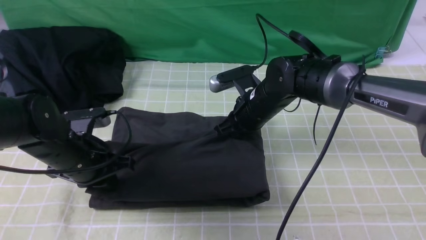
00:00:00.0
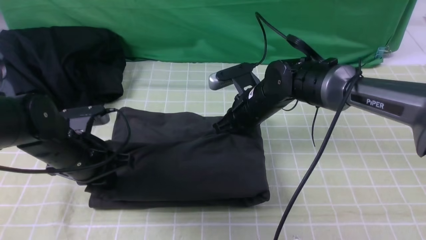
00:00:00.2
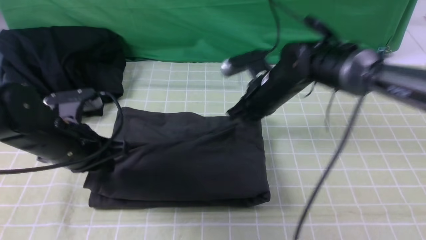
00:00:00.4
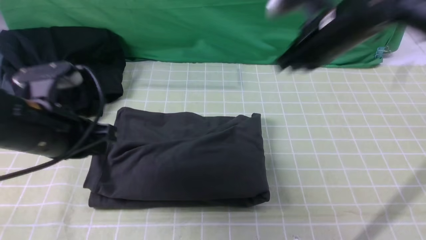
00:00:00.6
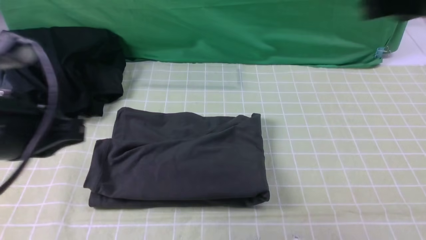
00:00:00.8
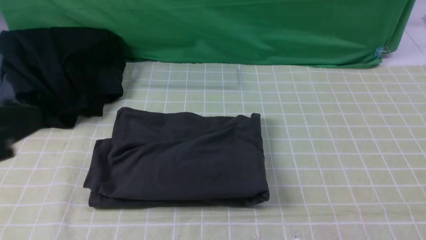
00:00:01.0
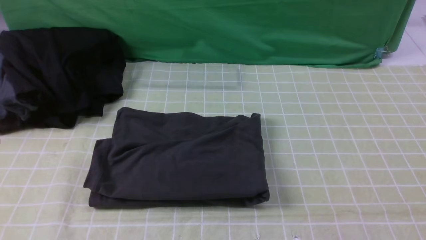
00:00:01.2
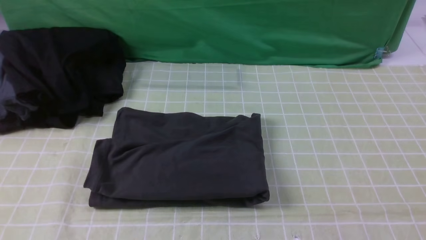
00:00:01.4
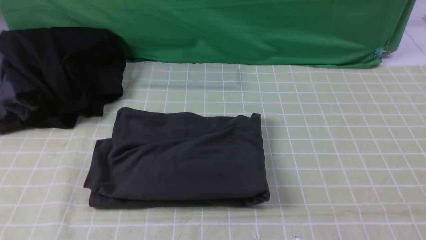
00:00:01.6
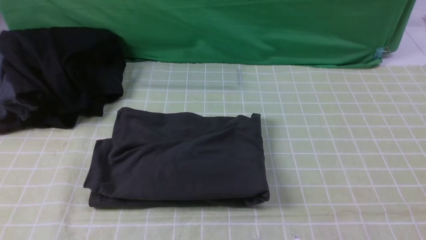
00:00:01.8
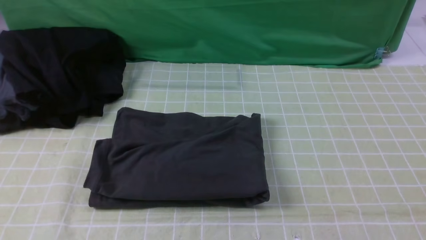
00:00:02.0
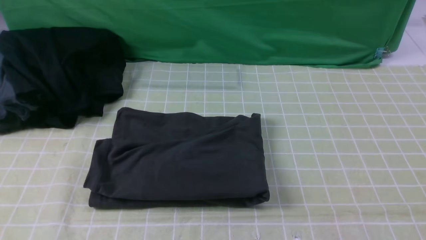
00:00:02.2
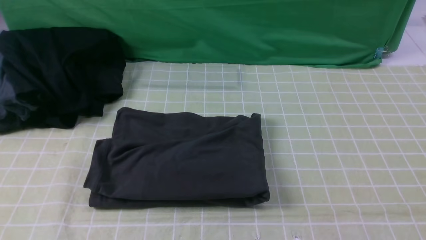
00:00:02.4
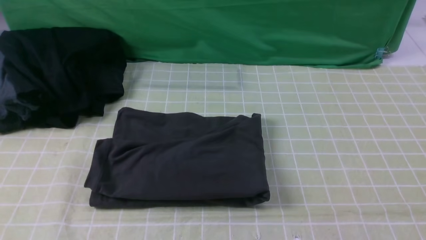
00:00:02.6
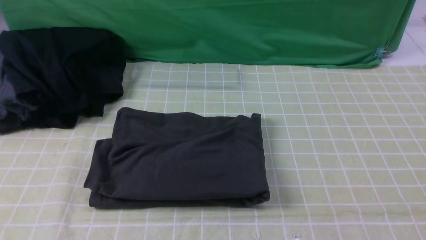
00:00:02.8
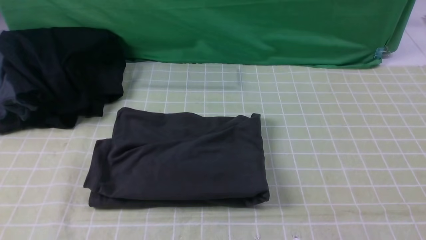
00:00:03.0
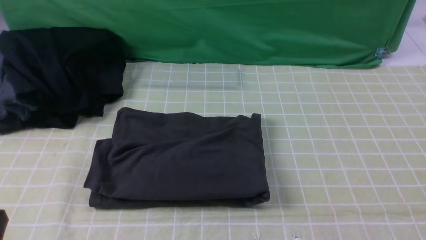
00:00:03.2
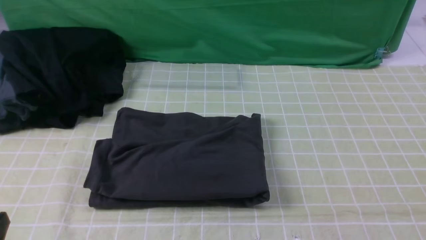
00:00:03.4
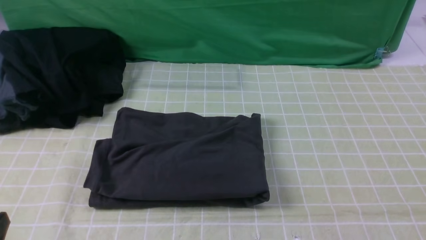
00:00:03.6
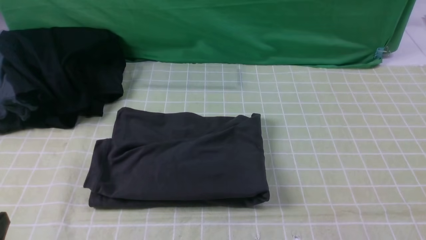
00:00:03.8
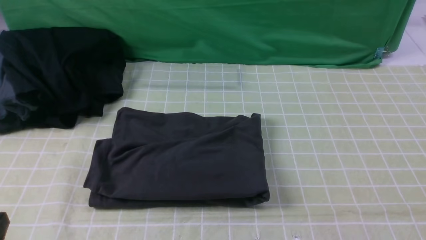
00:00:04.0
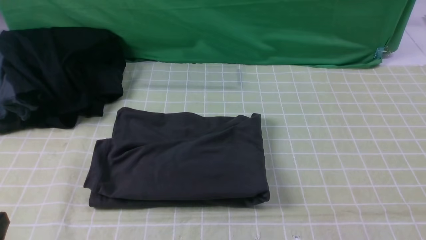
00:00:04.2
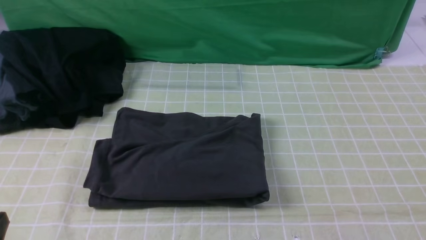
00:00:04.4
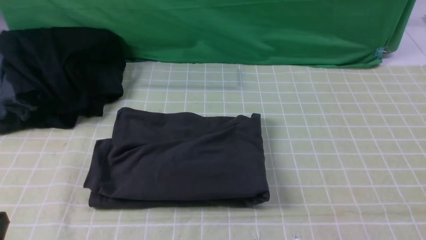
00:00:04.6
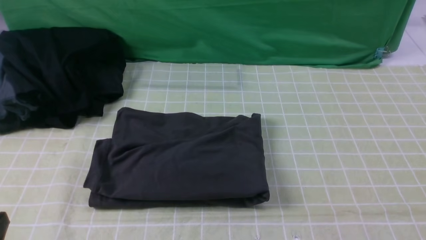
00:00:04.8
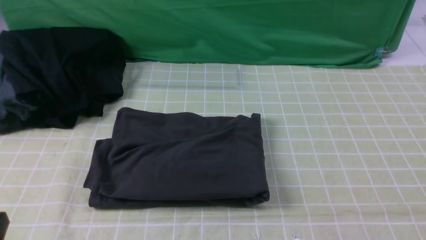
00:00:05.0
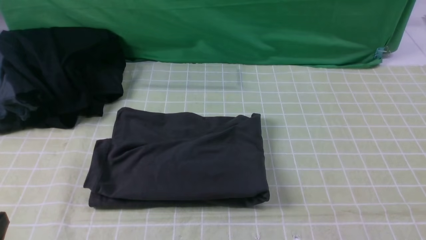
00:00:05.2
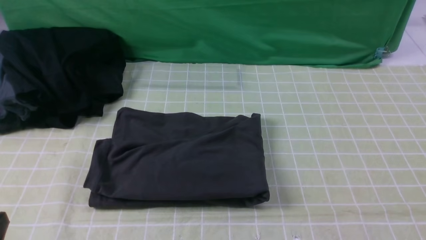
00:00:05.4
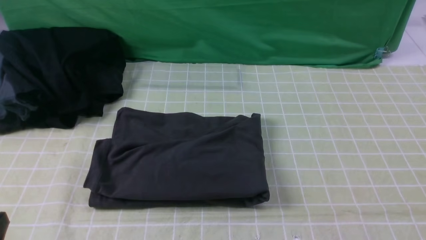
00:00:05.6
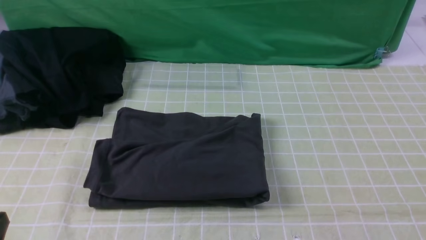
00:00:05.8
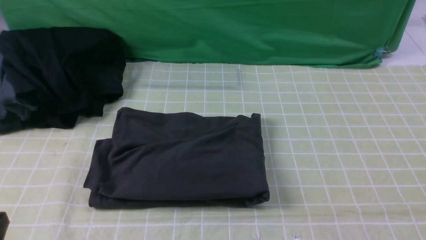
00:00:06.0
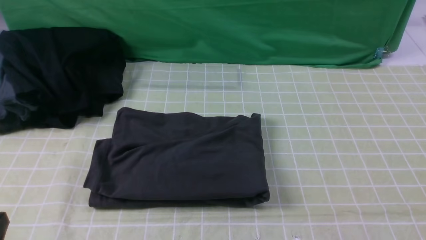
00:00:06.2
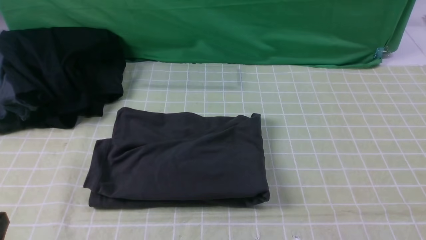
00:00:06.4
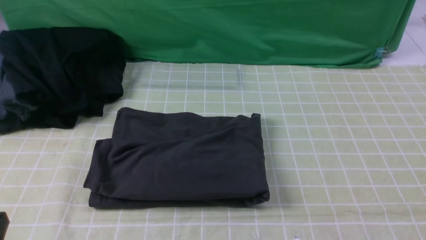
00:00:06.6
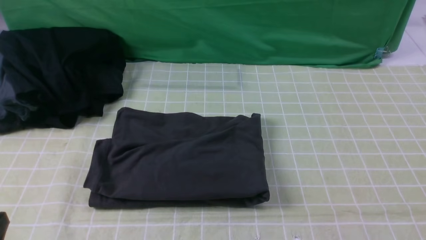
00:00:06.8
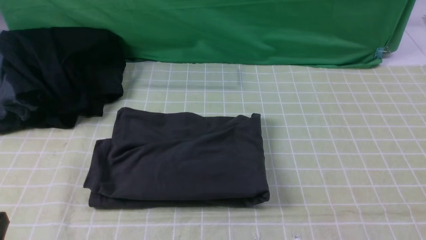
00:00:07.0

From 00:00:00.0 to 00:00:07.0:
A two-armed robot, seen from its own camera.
From 00:00:00.0 to 00:00:01.4: The right gripper goes about 50 cm backward, to the right and upward, while the left gripper is displaced backward and upward by some 35 cm.
From 00:00:05.6 to 00:00:07.0: Both grippers stay put.

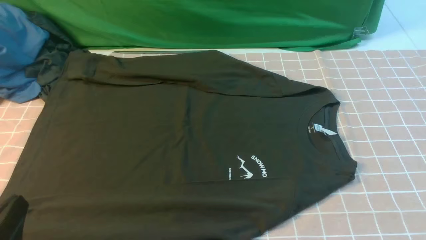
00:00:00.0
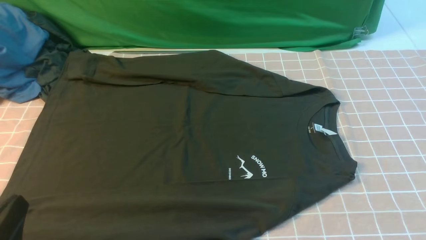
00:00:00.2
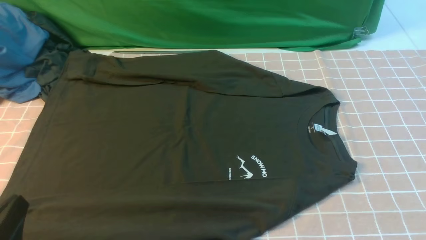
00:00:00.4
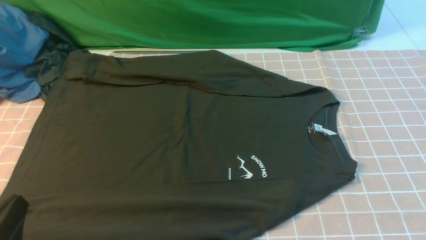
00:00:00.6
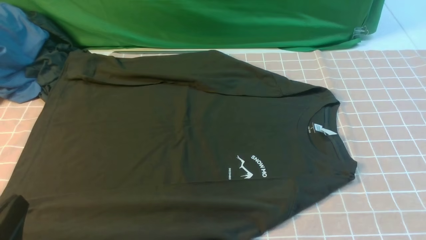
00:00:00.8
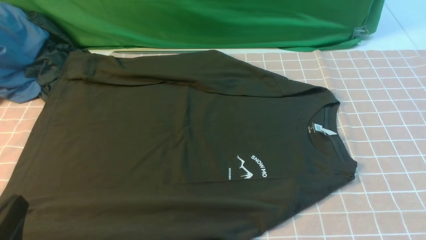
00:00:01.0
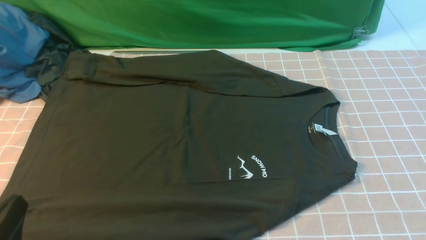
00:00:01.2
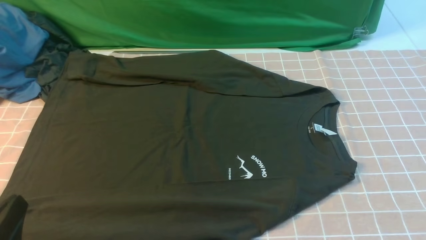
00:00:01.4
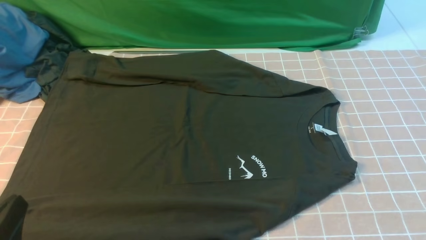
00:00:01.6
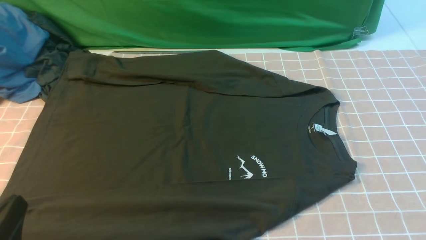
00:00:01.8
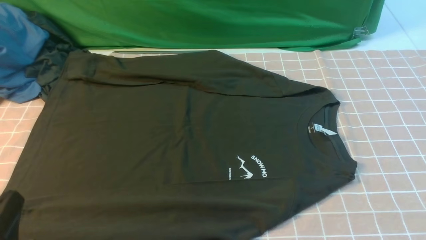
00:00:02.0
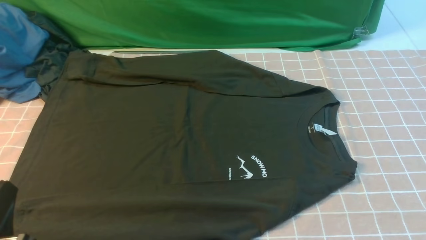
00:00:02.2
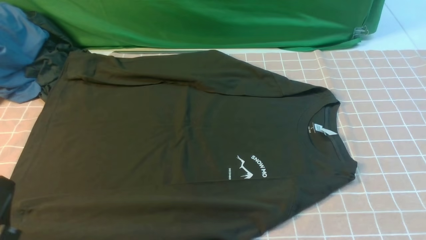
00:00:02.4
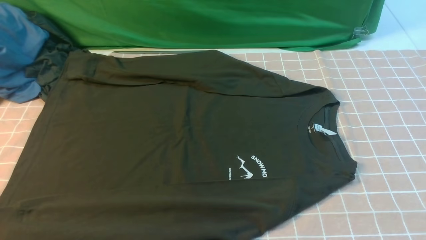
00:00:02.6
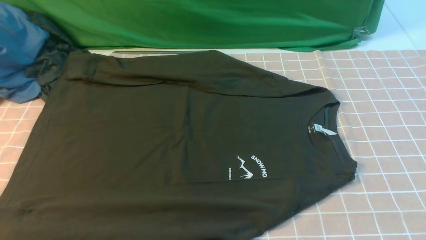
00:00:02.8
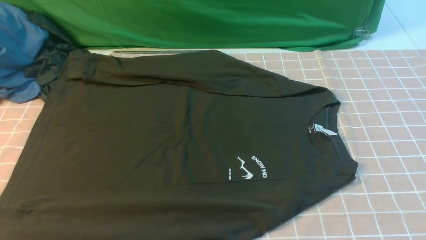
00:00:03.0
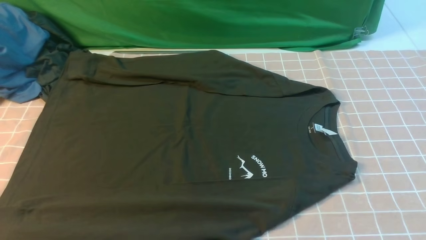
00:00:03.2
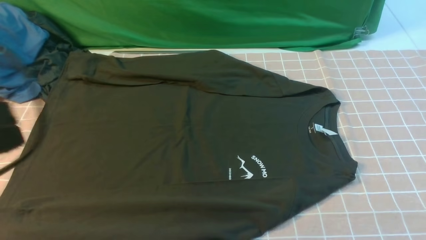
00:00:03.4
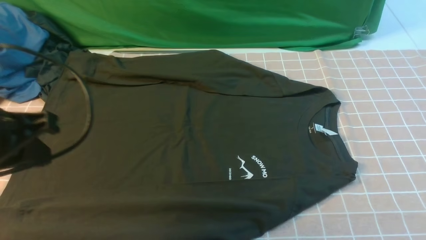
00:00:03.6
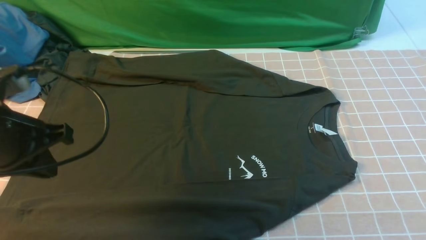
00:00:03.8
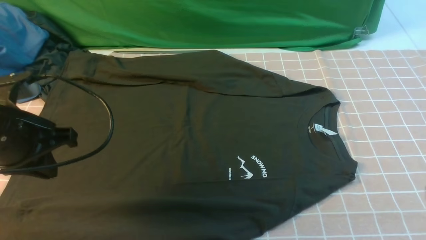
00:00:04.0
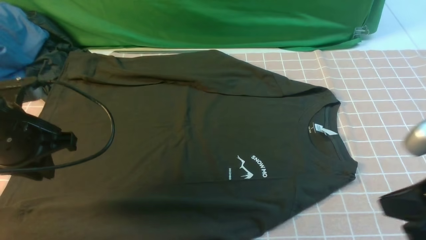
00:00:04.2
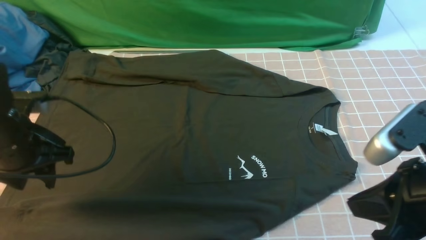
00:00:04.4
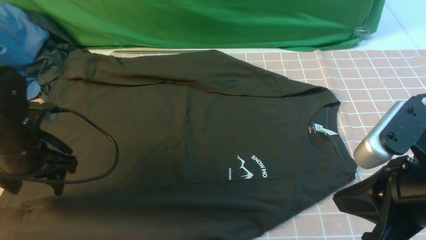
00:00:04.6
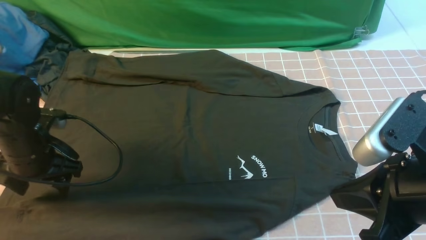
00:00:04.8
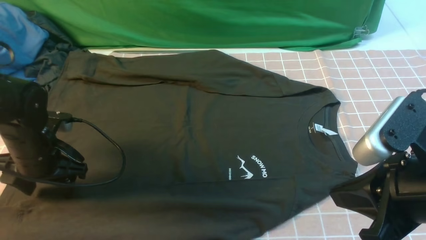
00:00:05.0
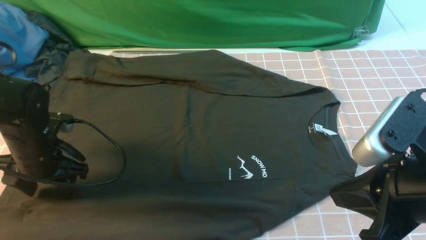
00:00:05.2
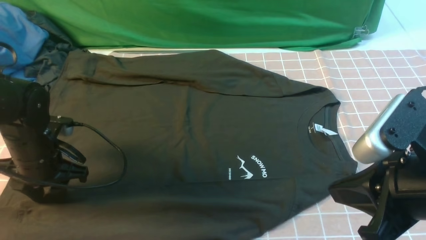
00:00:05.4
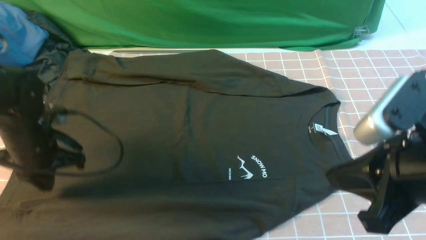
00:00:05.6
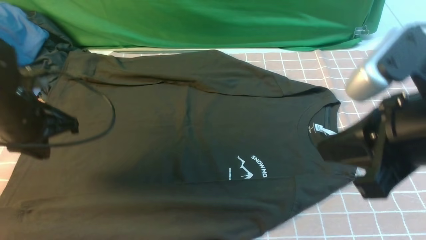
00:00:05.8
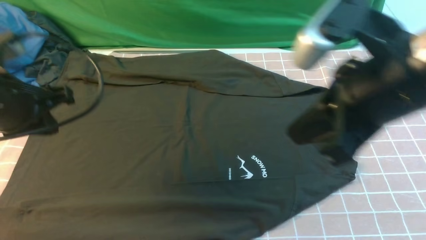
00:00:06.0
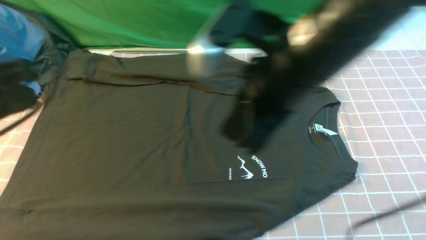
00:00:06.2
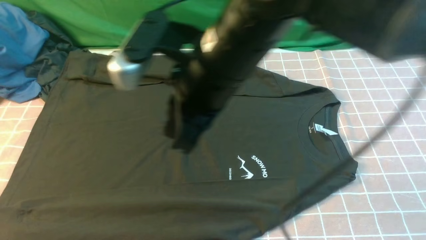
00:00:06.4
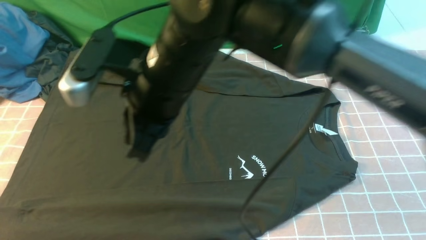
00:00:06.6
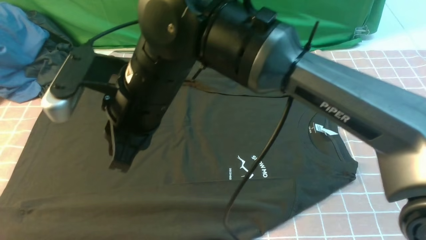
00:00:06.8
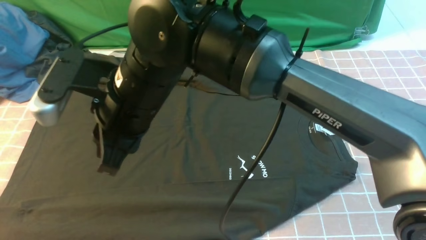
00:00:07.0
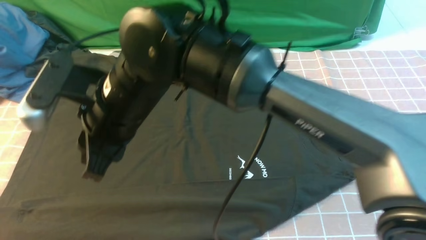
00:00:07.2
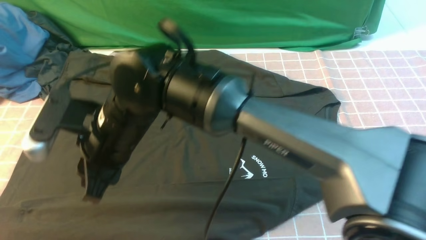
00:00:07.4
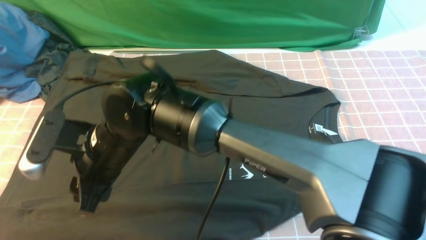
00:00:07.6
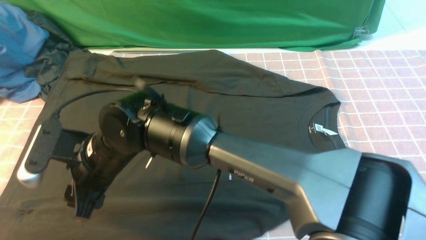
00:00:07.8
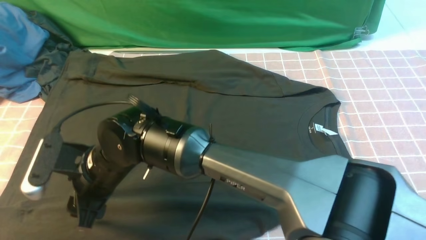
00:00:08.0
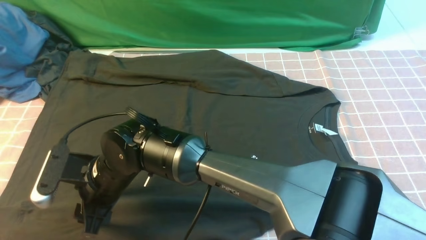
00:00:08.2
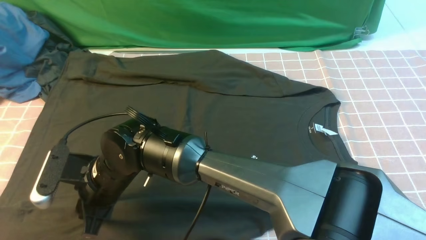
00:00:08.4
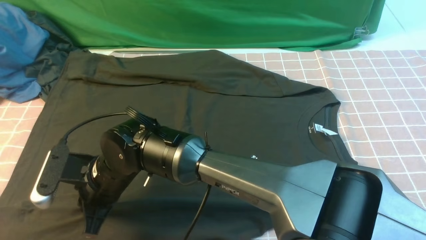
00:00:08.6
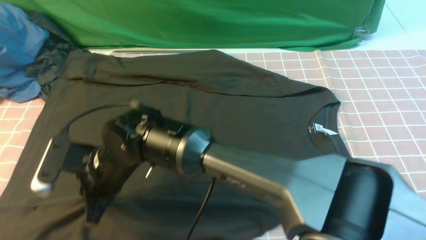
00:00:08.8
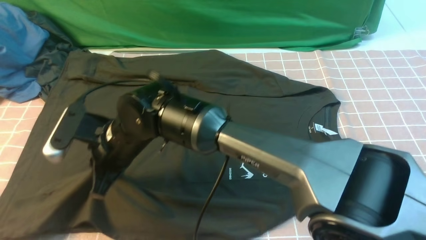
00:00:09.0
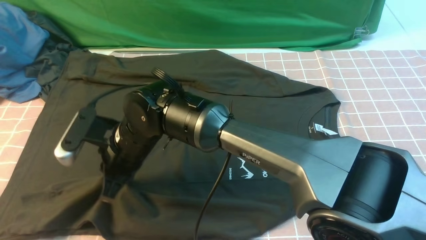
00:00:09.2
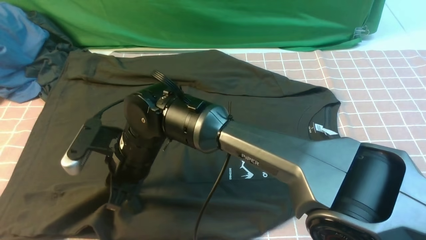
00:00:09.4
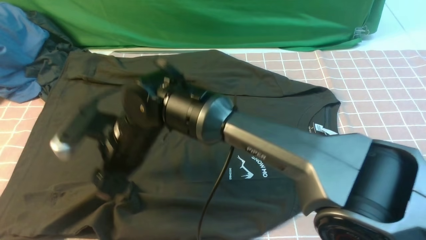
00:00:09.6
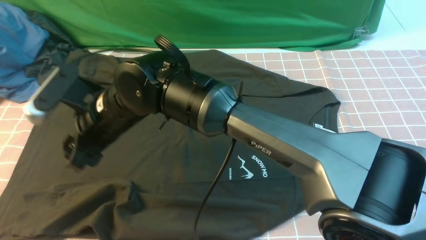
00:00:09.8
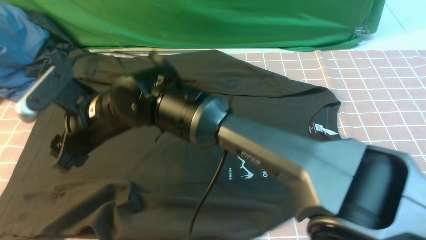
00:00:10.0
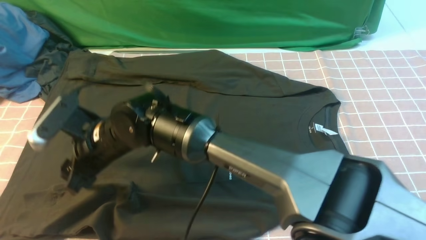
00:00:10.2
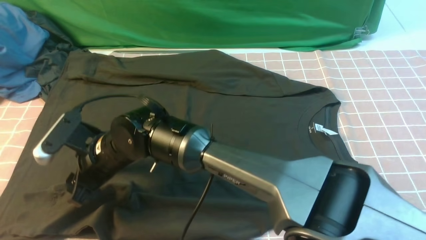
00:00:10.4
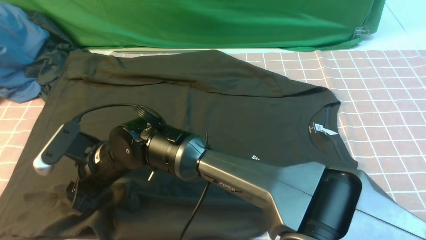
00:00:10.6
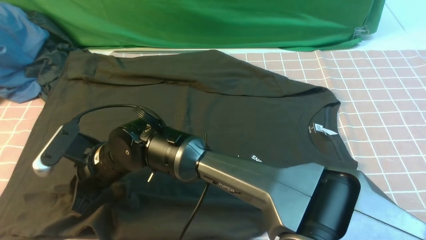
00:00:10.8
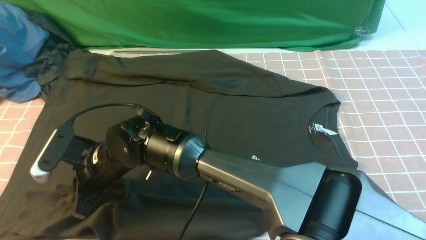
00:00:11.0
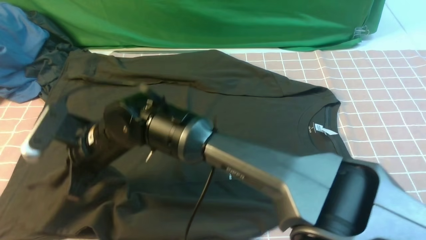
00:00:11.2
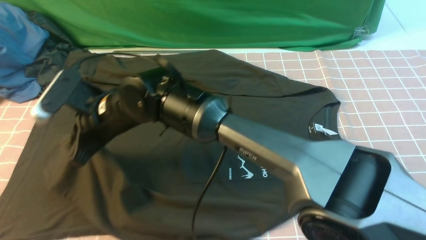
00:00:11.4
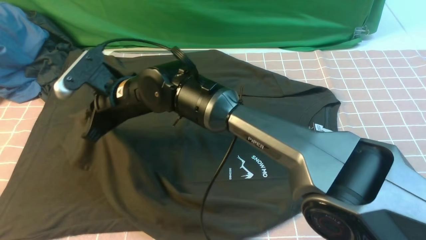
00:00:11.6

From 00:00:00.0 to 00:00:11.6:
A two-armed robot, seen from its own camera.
Step, from 00:00:00.0 to 00:00:08.8: Use your right arm to clamp the cuff closest to him.
From 00:00:00.0 to 00:00:01.4: The two grippers keep their place.
From 00:00:01.4 to 00:00:02.8: The left gripper shifts about 10 cm upward.
From 00:00:02.8 to 00:00:04.4: The right gripper shifts approximately 15 cm to the left, forward and upward, and closes up. Meanwhile the left gripper moves forward, about 20 cm, and opens its fingers.
From 00:00:04.4 to 00:00:05.8: The left gripper moves about 5 cm downward and comes back, and closes. The right gripper is displaced upward by roughly 5 cm.
From 00:00:05.8 to 00:00:07.2: The left gripper is displaced backward and upward by roughly 35 cm, while the right gripper is displaced to the left by some 30 cm, and opens its fingers.
From 00:00:07.2 to 00:00:08.8: The right gripper is displaced downward by roughly 10 cm, and closes.
From 00:00:08.8 to 00:00:10.2: The right gripper opens up.
From 00:00:10.2 to 00:00:11.6: The right gripper is displaced forward by roughly 5 cm, and closes its fingers.